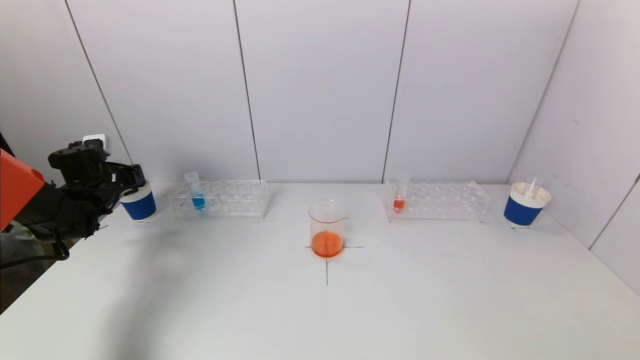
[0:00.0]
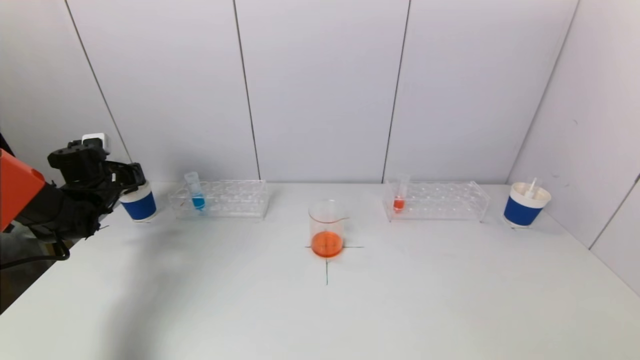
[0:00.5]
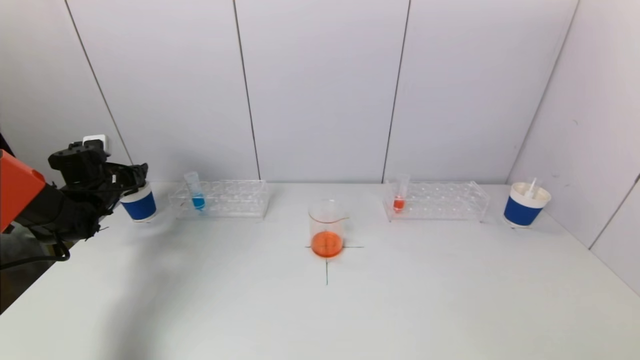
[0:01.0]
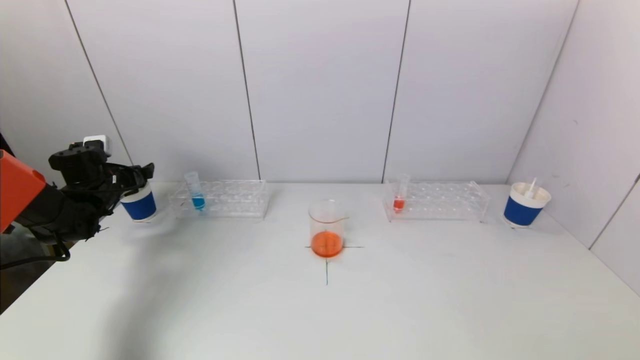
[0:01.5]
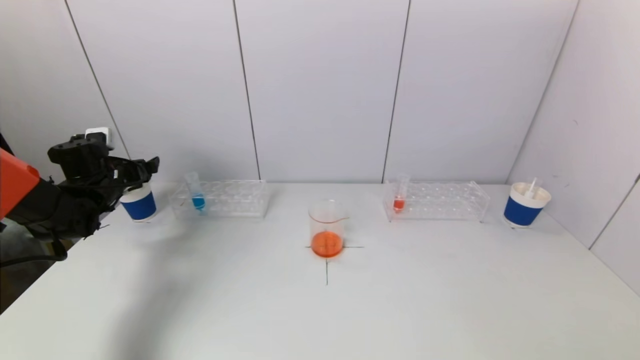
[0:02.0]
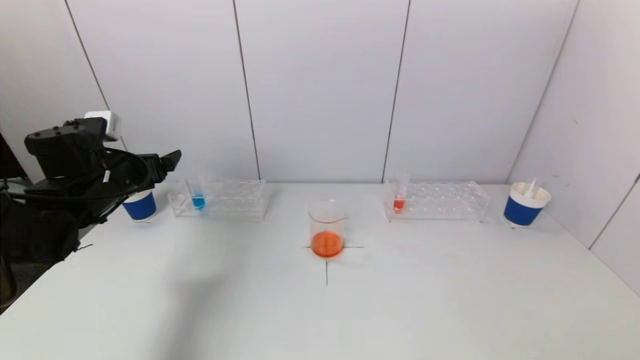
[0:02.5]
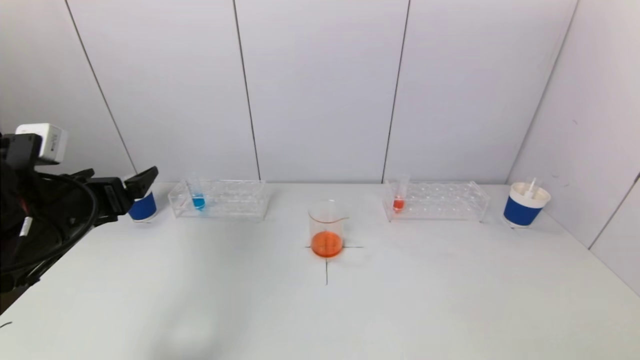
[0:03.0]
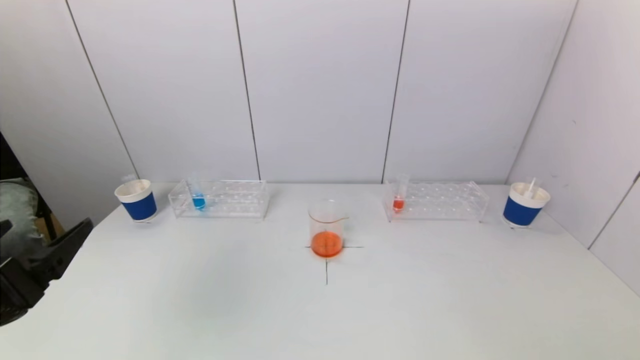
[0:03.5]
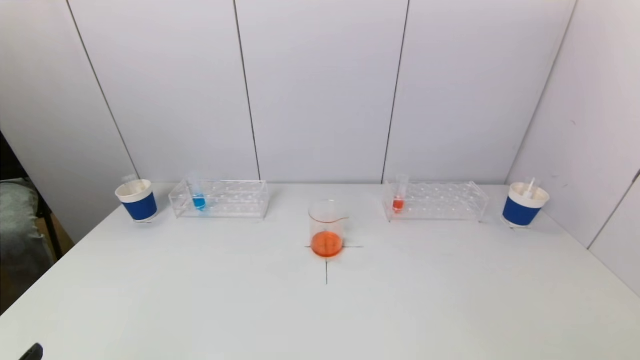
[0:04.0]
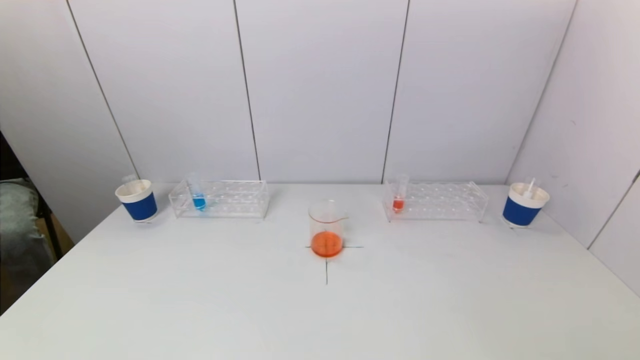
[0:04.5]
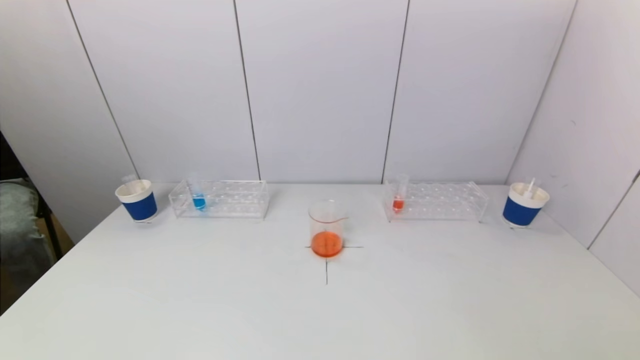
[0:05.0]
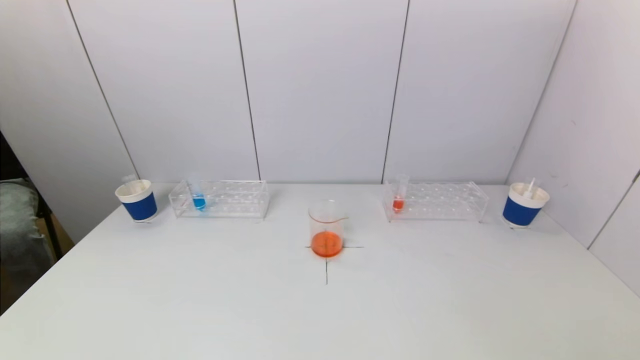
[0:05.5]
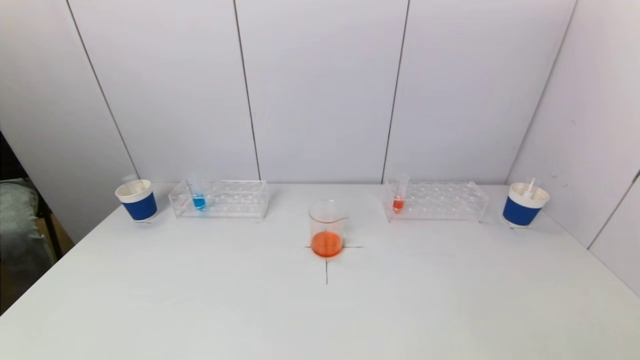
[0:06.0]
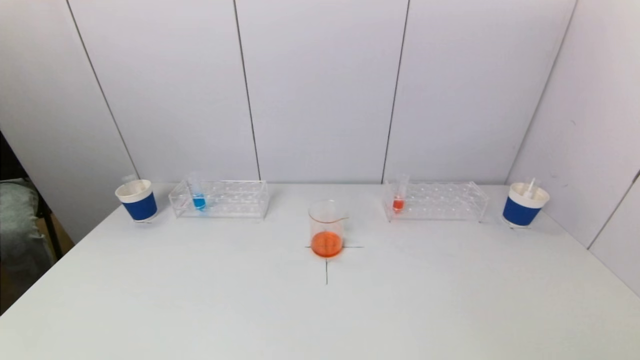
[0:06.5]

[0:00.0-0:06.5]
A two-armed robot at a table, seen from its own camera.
Task of the whole recording: pick up a test tube with pigment on left test tube rack and a test tube with pigment on right test tube rack by grippers and pour them into the beaker.
0:00.0 to 0:02.0: The left gripper opens its fingers.
0:02.0 to 0:04.5: The left gripper moves backward, approximately 50 cm.

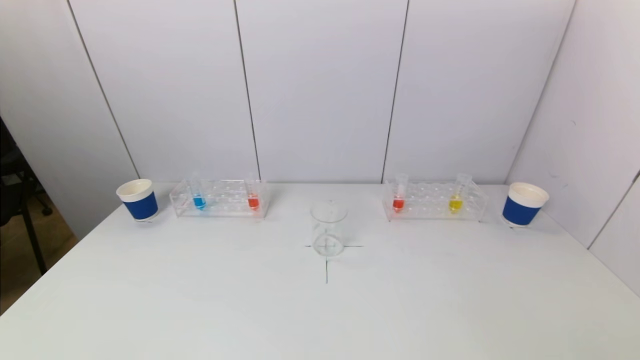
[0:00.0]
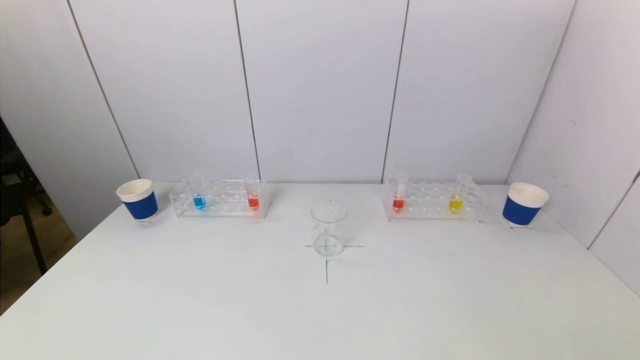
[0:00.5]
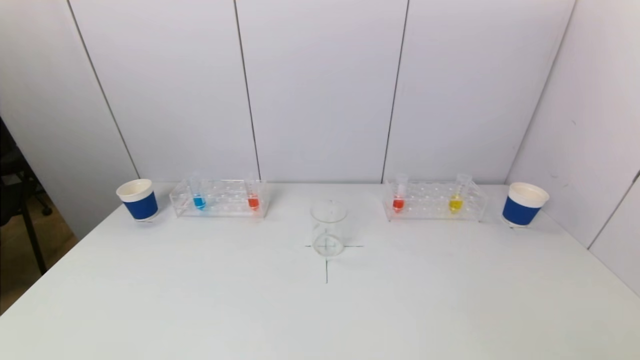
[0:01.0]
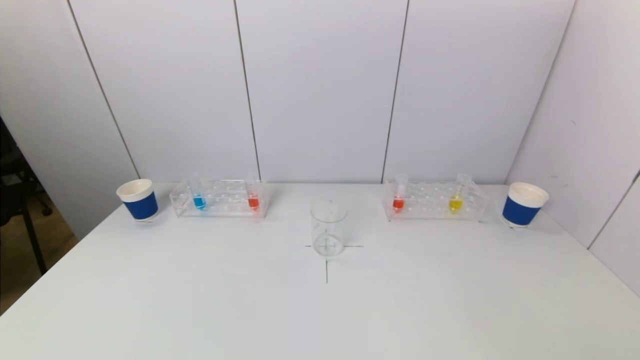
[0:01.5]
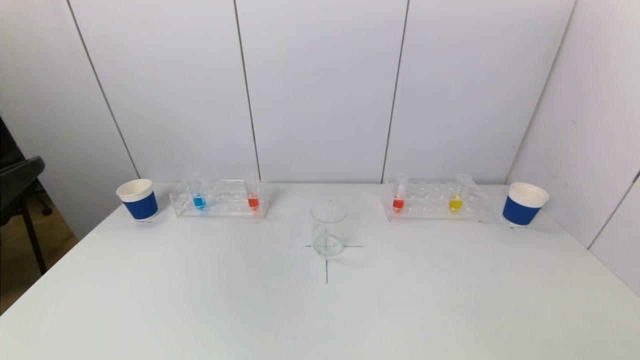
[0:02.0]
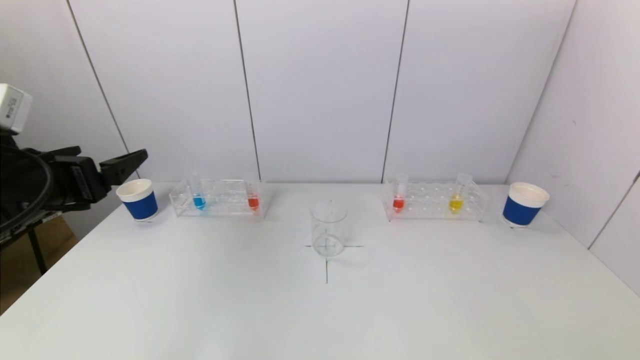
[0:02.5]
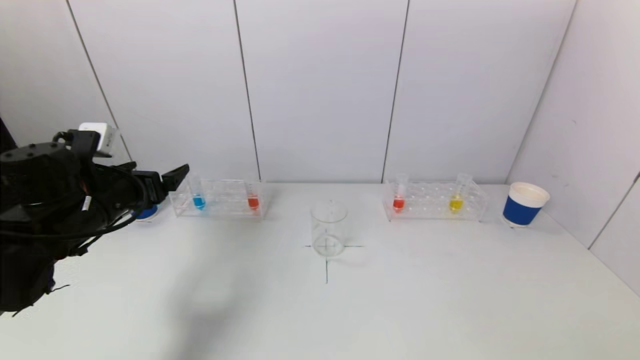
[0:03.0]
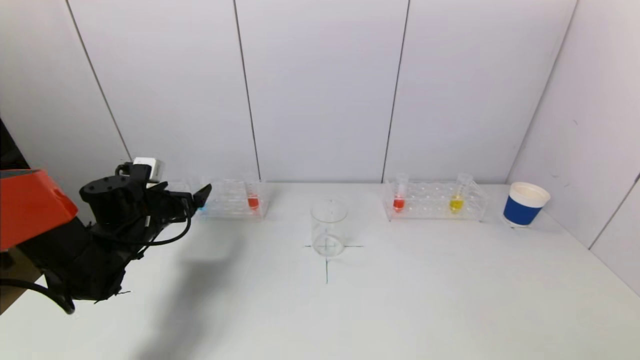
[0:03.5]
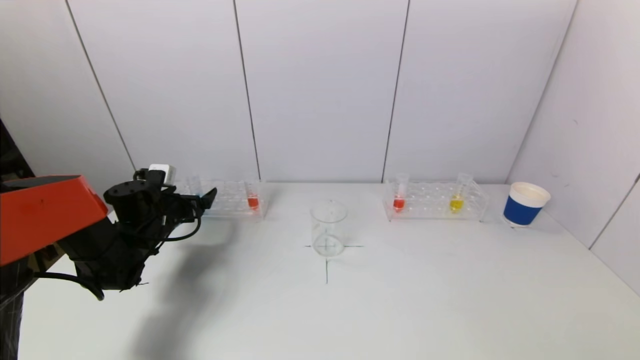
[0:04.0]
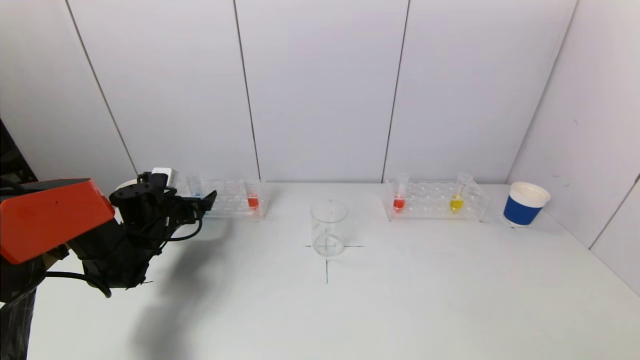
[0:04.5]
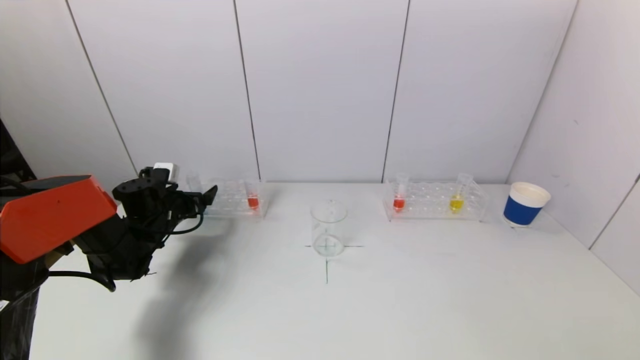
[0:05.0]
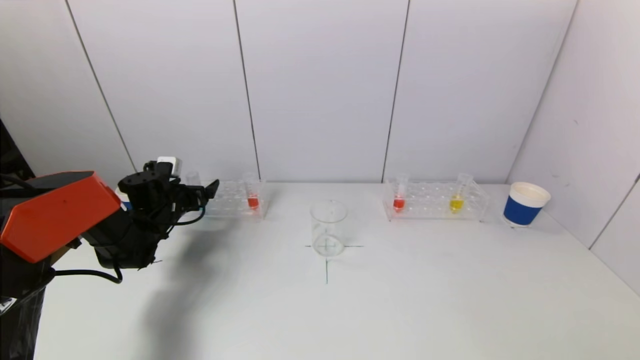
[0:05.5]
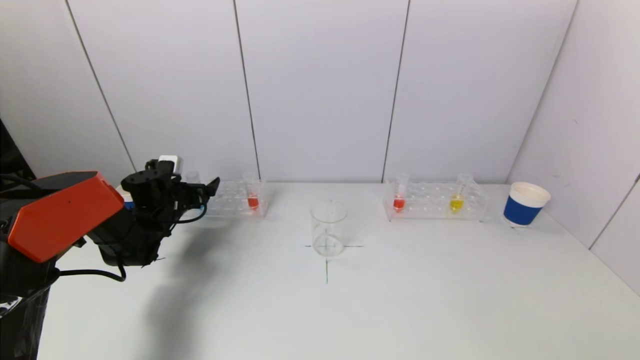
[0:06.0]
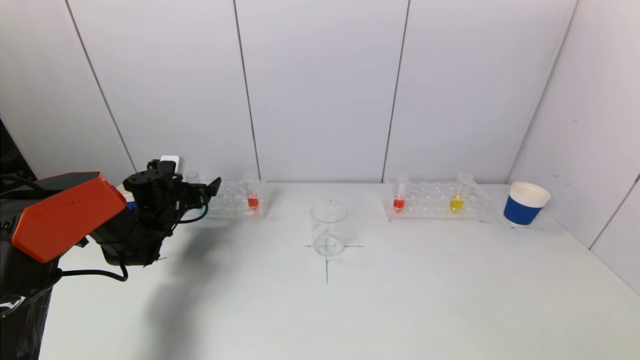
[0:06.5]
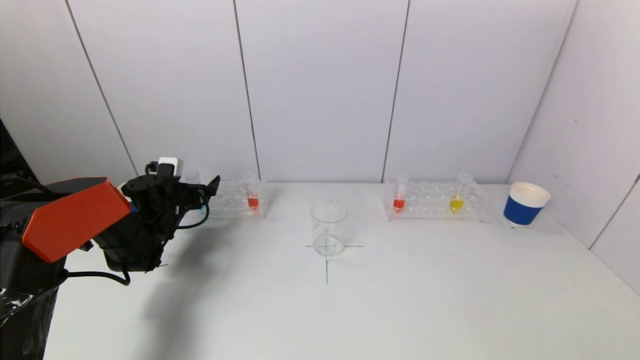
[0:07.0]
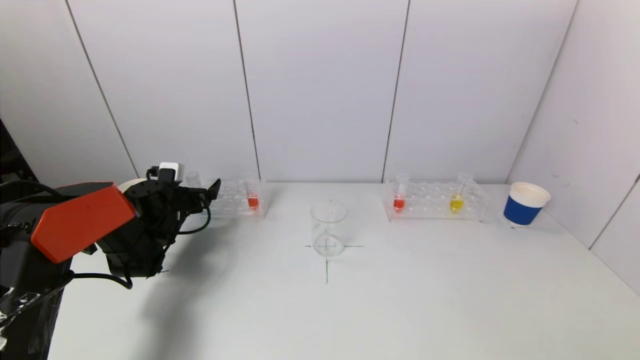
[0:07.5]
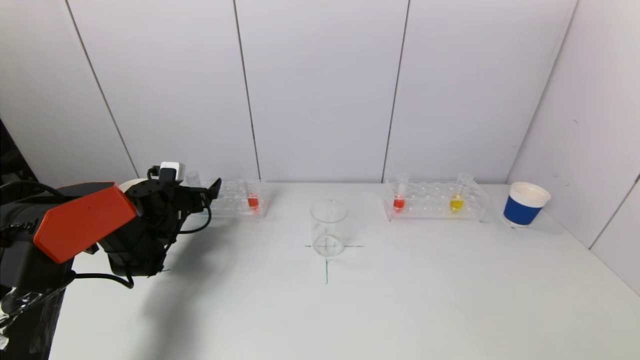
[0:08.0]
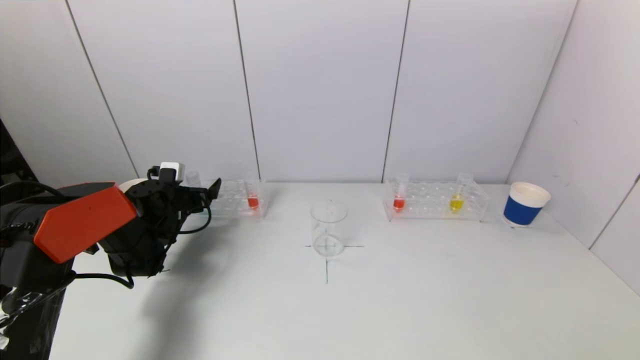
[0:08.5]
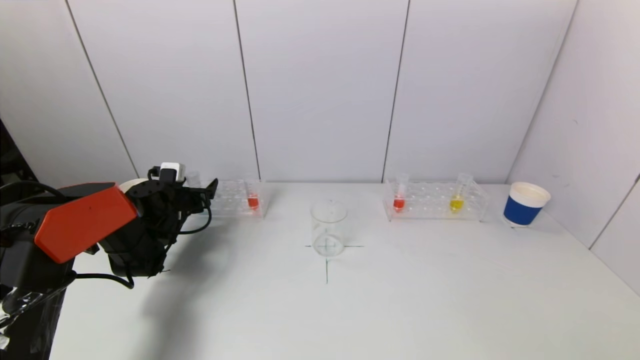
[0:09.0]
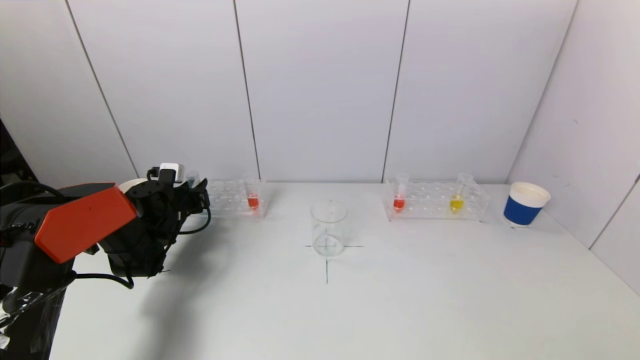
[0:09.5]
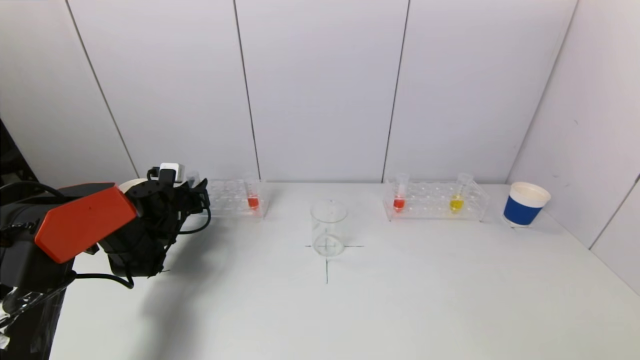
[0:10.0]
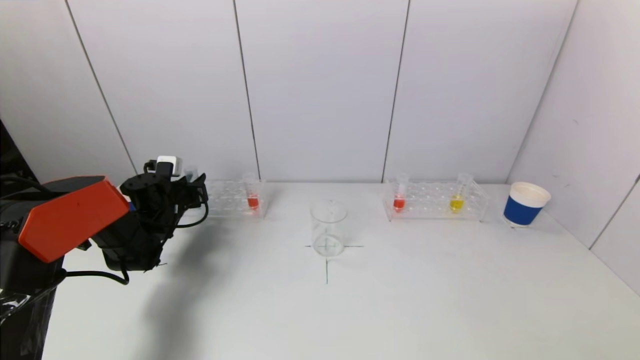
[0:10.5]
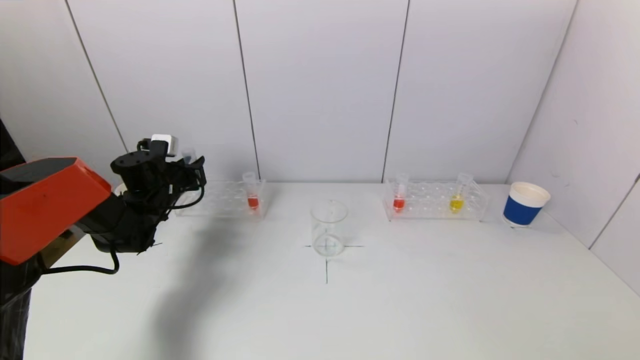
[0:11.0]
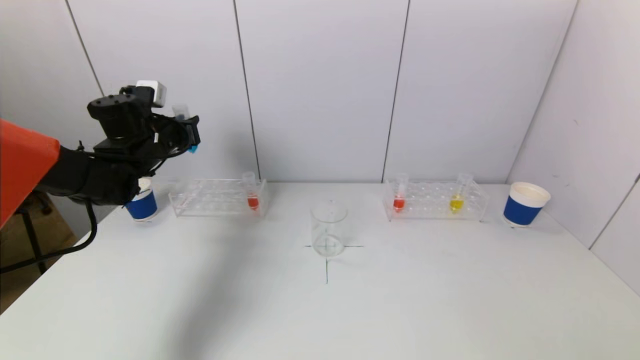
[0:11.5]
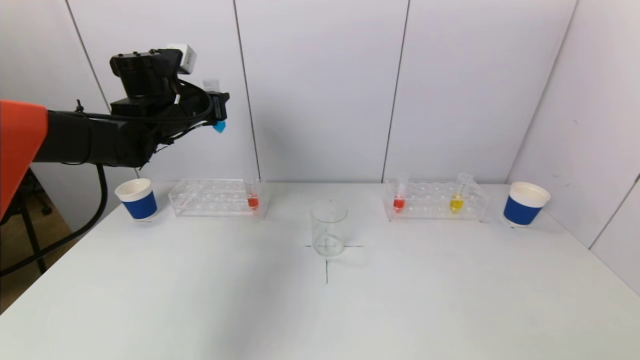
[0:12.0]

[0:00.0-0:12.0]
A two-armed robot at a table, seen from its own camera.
Task of the whole recording: pick up a test tube with pigment on left test tube rack and a test tube with pigment on right test tube rack by grippers and pour them into the beaker.
Step, 0:00.0 to 0:09.5: Grasp the blue reagent with the left gripper.
0:02.0 to 0:04.0: The left gripper goes roughly 40 cm forward and downward.
0:04.0 to 0:08.0: The grippers stay close to where they were, moving slightly.
0:10.0 to 0:12.0: The left gripper travels upward by about 25 cm.

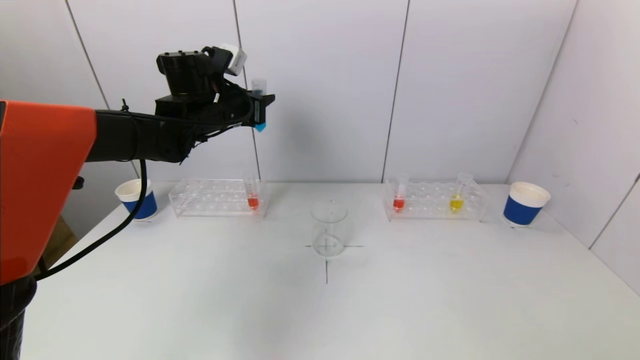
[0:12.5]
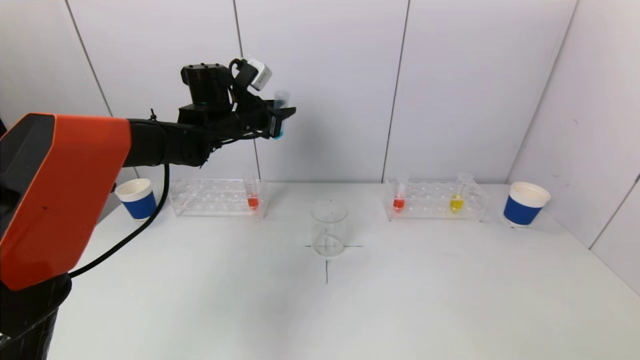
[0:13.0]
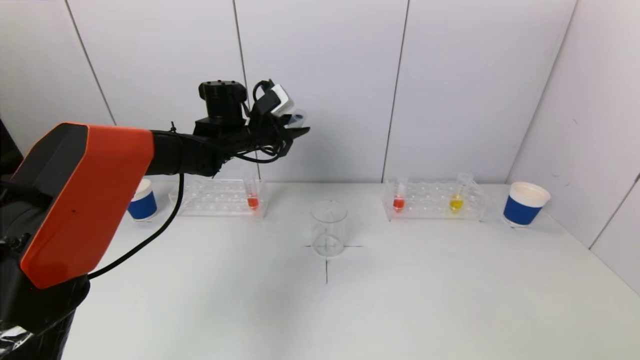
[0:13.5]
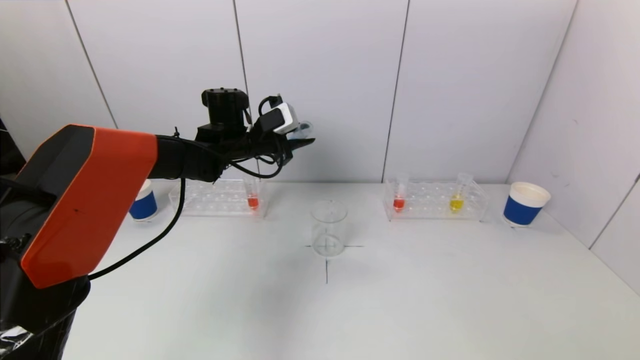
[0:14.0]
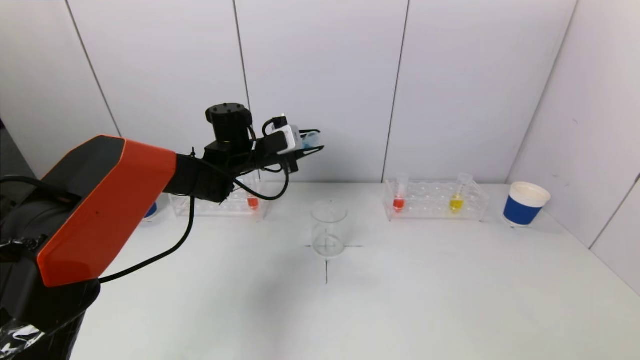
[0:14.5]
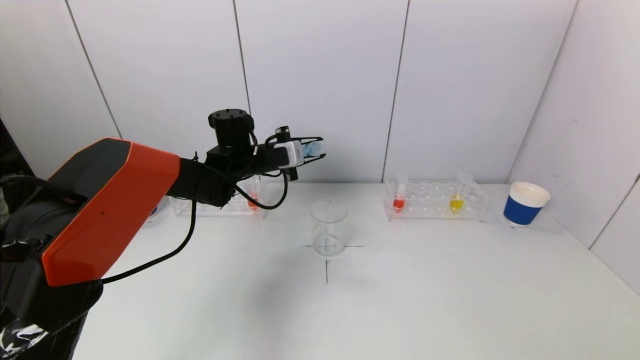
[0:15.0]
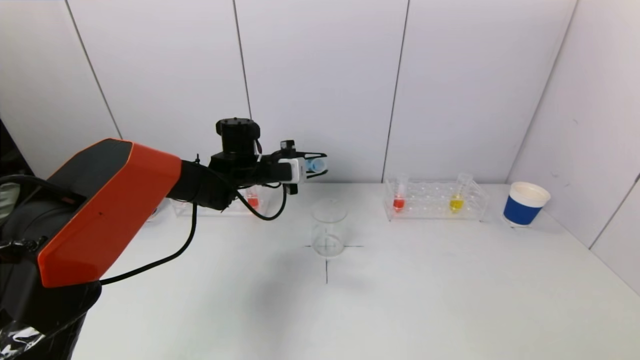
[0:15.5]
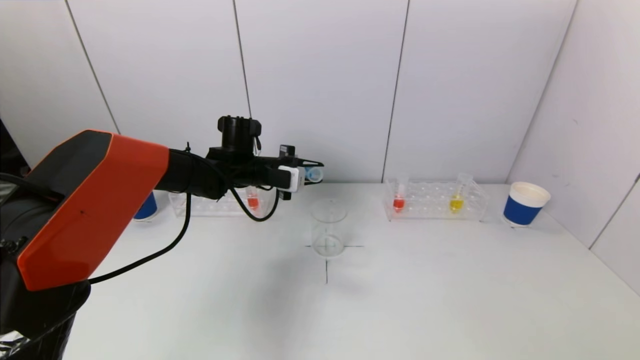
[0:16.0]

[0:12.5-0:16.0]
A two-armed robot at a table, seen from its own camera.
Task of the whole recording: pick up a test tube with pigment on left test tube rack and a test tube with pigment on right test tube rack by grippers and pour them into the beaker.
0:12.5 to 0:14.5: The left gripper goes roughly 10 cm downward and to the right.
